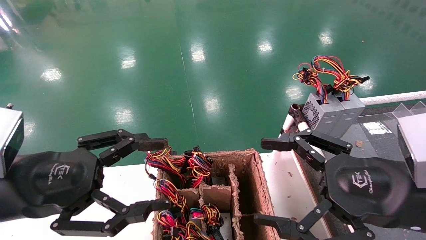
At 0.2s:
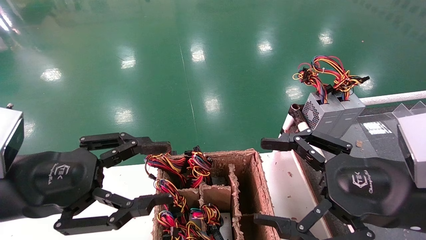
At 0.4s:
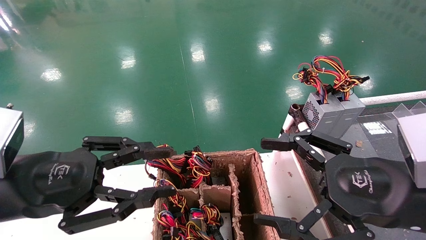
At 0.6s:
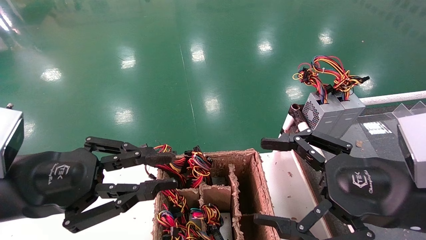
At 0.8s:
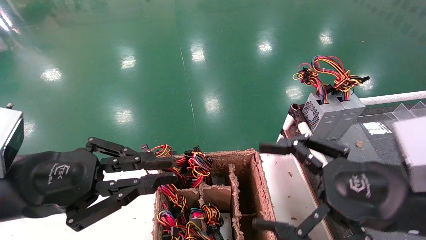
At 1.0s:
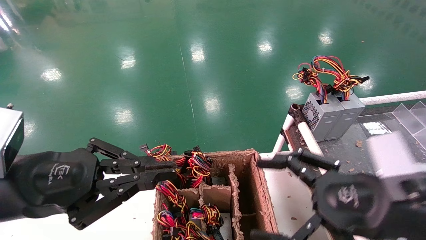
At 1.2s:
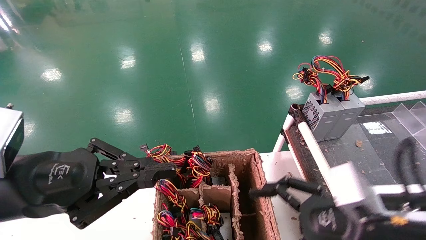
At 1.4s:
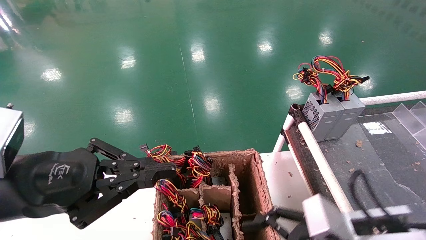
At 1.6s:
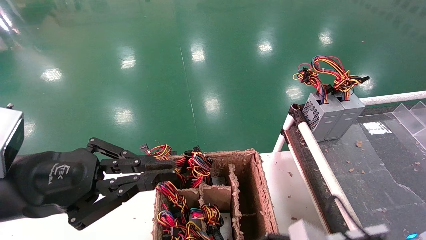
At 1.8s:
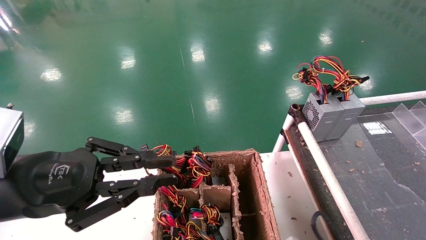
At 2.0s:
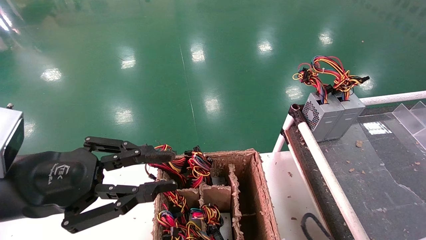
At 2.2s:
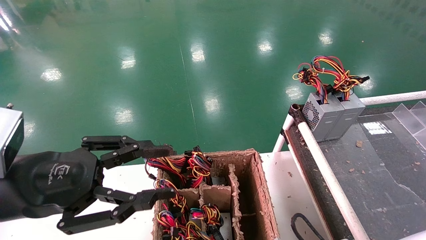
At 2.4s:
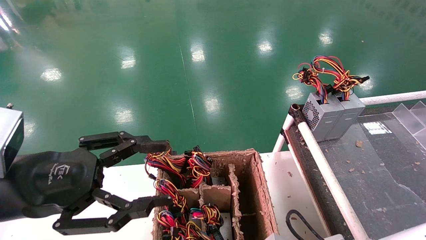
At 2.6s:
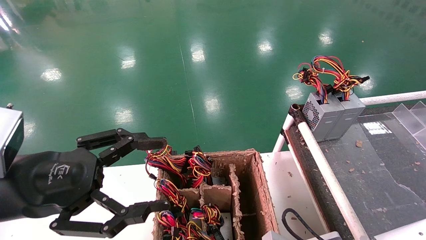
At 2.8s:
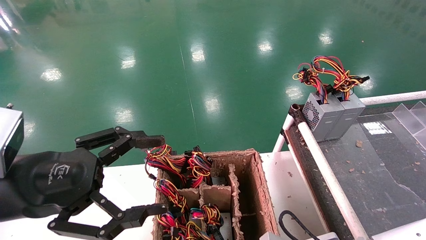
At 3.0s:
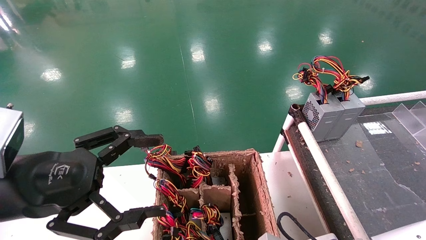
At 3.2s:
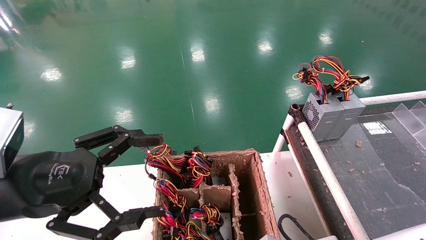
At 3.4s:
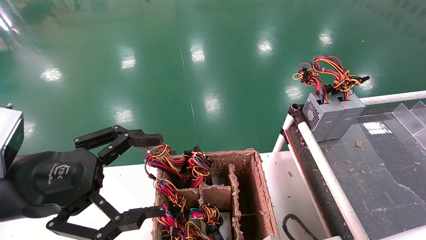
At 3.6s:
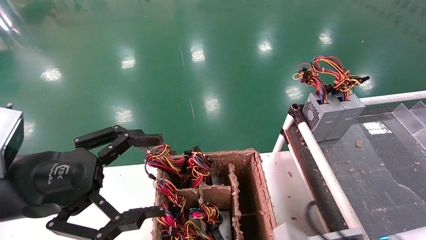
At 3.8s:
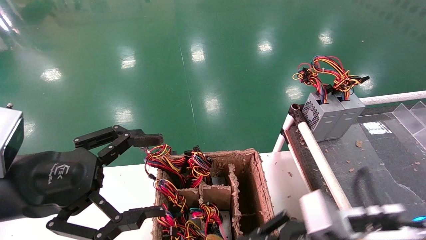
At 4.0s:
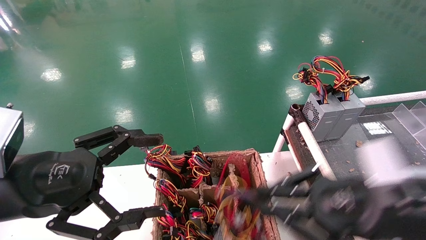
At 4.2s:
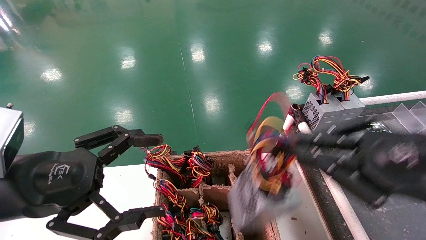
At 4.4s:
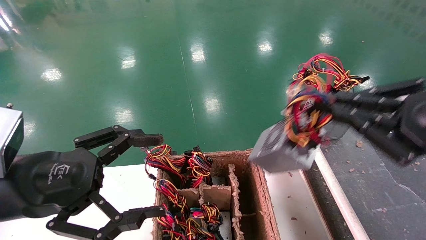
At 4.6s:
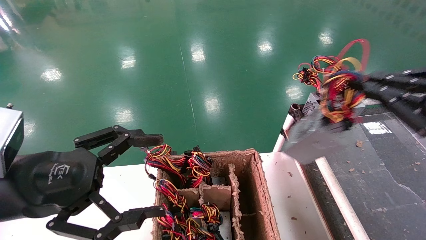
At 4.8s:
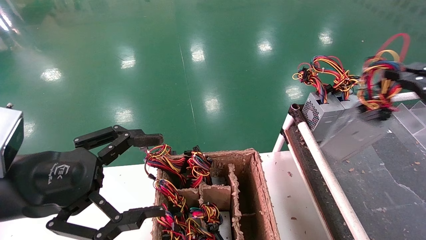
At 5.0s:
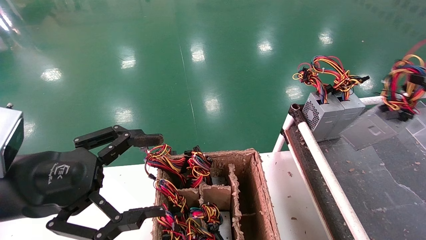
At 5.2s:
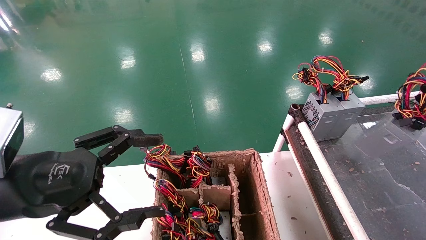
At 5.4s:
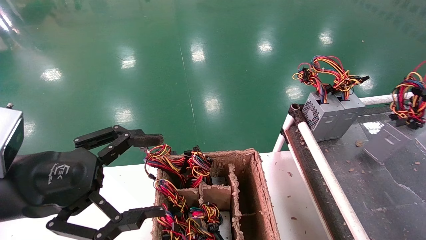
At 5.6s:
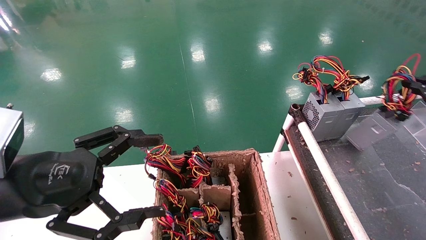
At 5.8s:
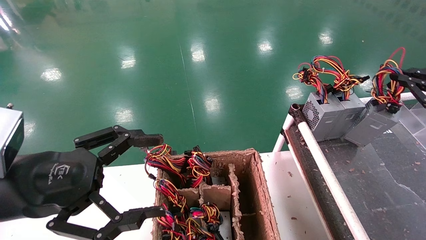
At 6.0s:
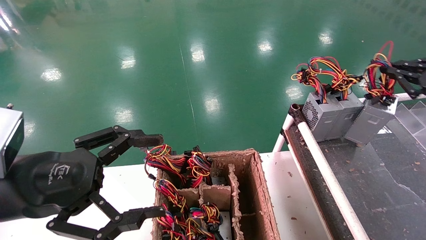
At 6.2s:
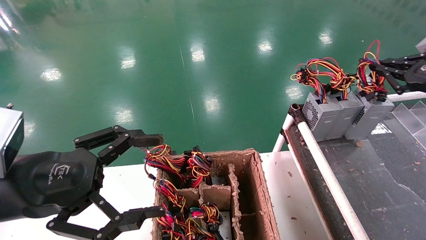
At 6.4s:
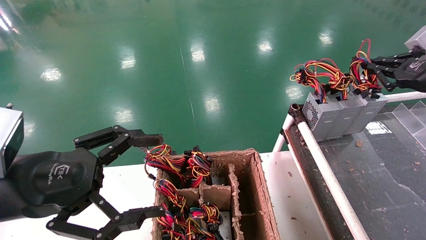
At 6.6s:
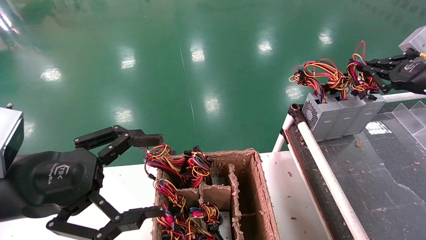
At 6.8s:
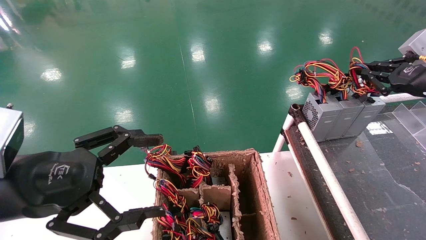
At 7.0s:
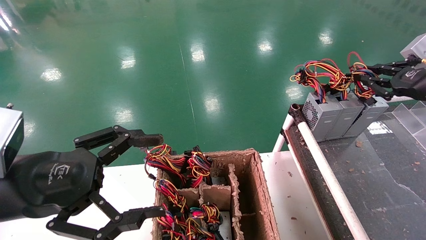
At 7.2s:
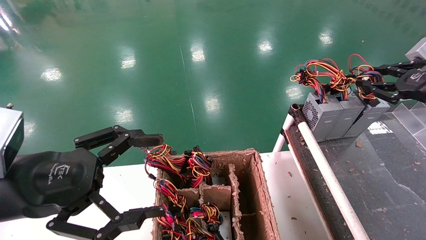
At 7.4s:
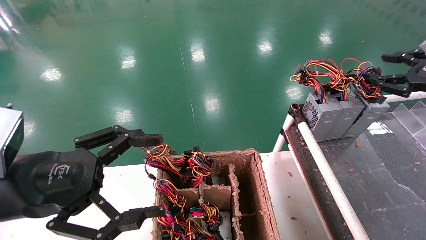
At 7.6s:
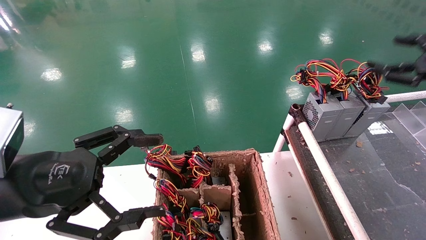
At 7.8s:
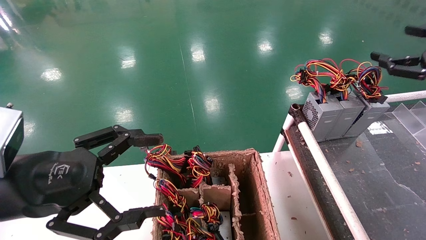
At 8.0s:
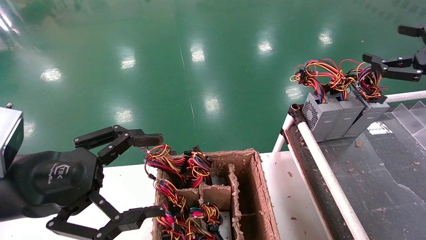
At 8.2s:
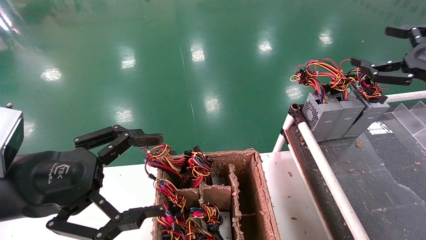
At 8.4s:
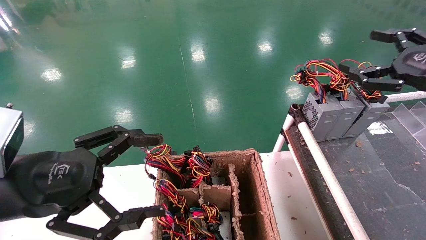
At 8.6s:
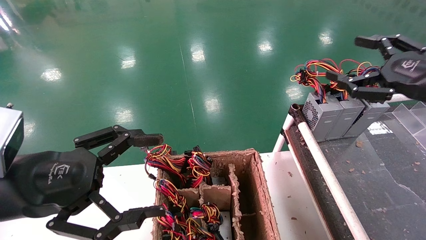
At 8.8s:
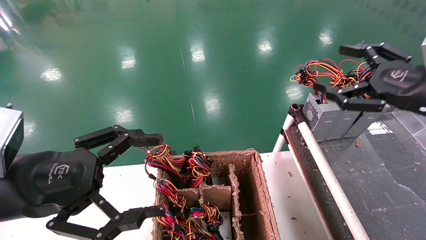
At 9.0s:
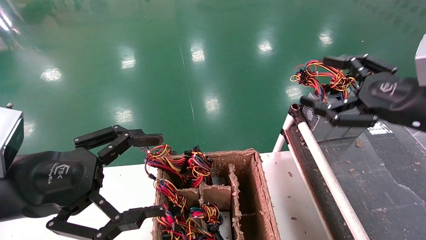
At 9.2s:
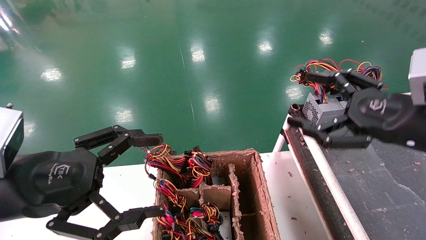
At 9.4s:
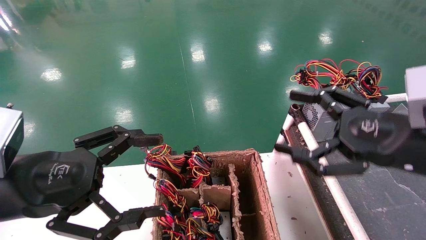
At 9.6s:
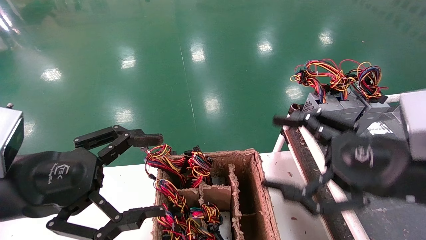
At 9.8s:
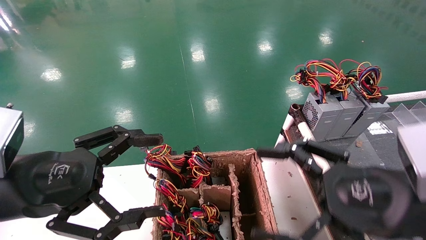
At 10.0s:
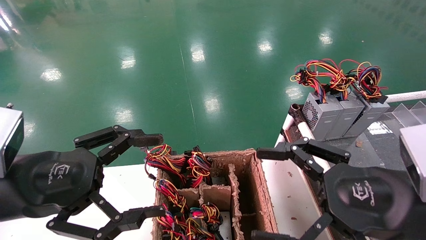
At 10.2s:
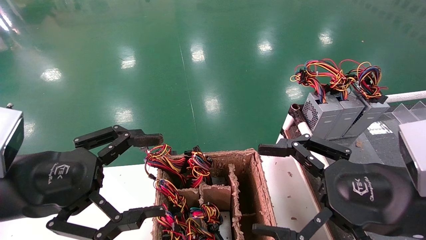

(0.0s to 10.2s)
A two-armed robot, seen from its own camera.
Step, 1.0s - 3.2s: Grab and lift the power supply from the large box.
Step, 3.4s - 7.0s: Place the power supply on the operating table.
0.0s - 1.4s: The left gripper closes up. The right gripper is displaced downward by approximately 10 cm.
1.4s - 3.0s: The left gripper opens its fingers. The right gripper is displaced downward by roughly 10 cm, and closes.
3.0s - 4.4s: The right gripper goes approximately 25 cm upward and to the right.
4.4s - 5.8s: The right gripper goes roughly 20 cm to the right and forward.
5.8s - 7.2s: The right gripper moves about 5 cm.
7.2s - 8.8s: The right gripper goes about 10 cm to the left and backward, and opens up.
8.8s - 10.2s: The right gripper moves backward, to the left and downward, about 15 cm.

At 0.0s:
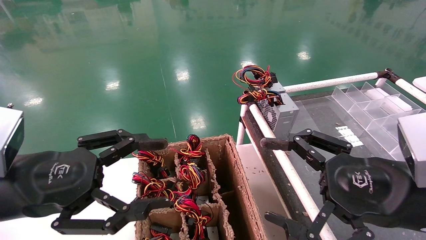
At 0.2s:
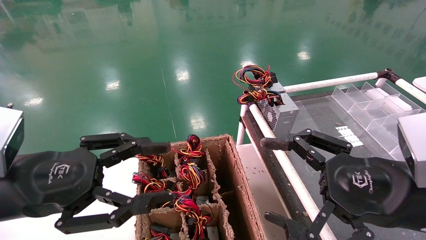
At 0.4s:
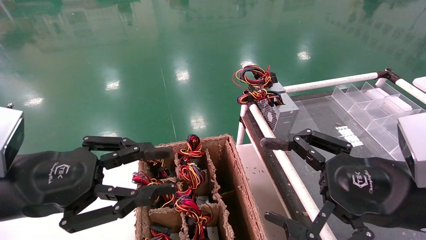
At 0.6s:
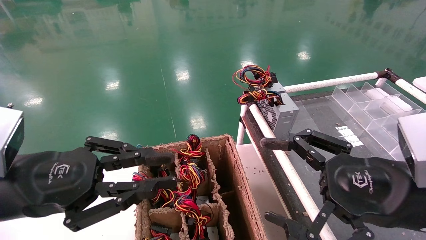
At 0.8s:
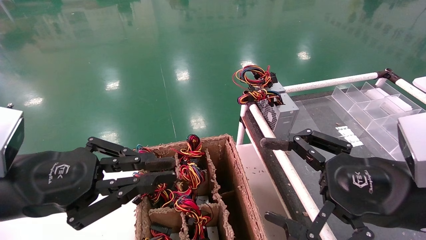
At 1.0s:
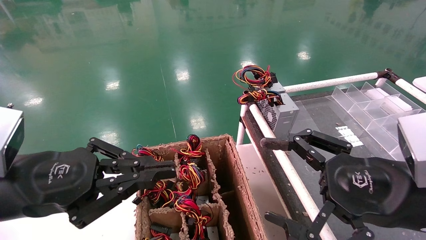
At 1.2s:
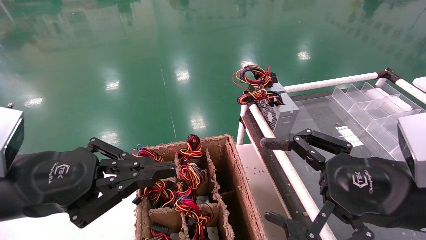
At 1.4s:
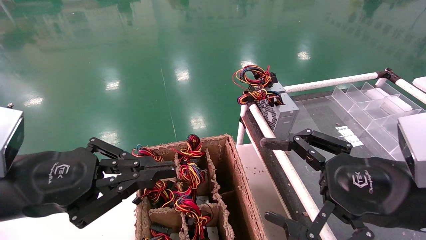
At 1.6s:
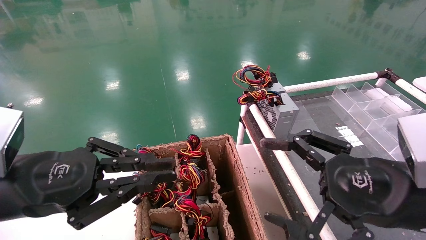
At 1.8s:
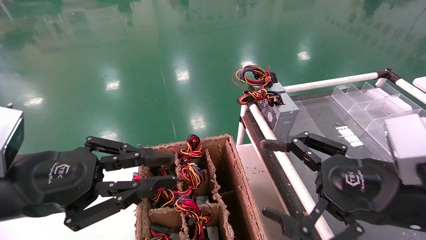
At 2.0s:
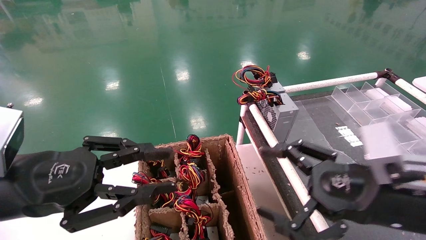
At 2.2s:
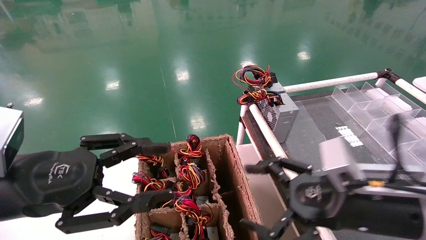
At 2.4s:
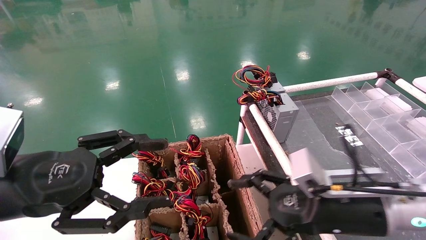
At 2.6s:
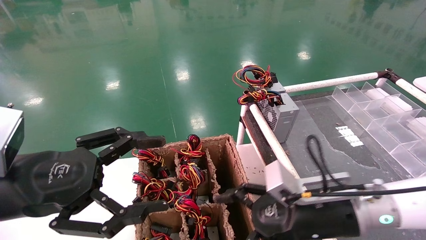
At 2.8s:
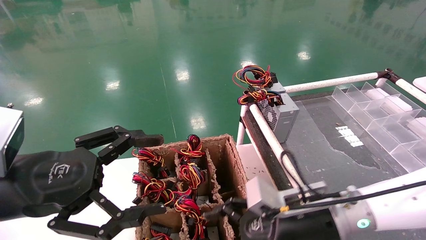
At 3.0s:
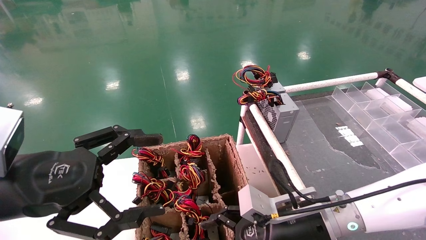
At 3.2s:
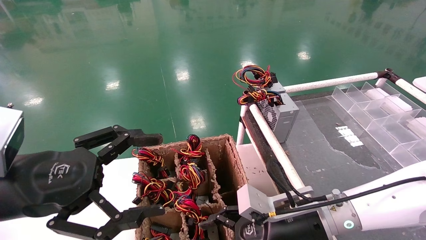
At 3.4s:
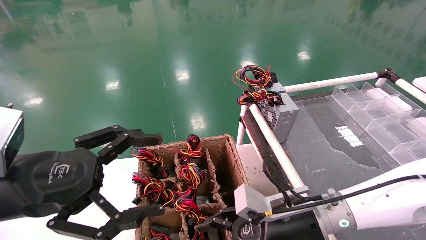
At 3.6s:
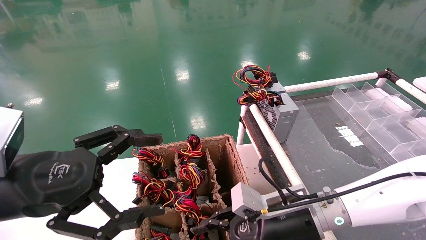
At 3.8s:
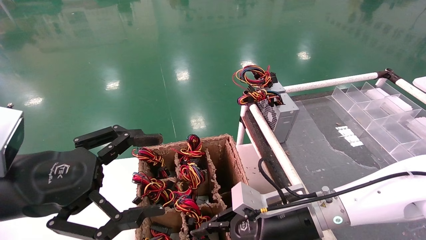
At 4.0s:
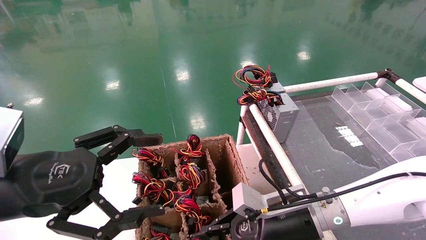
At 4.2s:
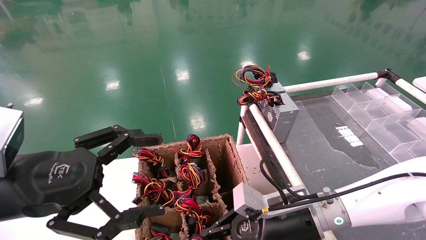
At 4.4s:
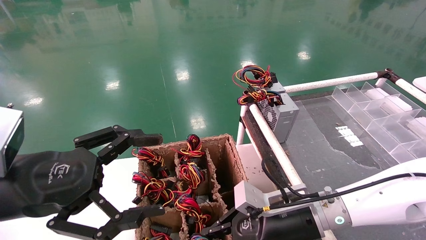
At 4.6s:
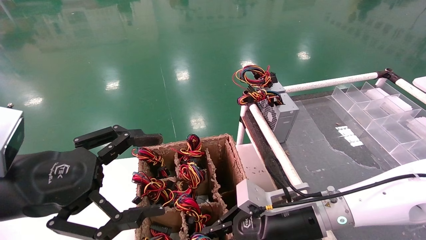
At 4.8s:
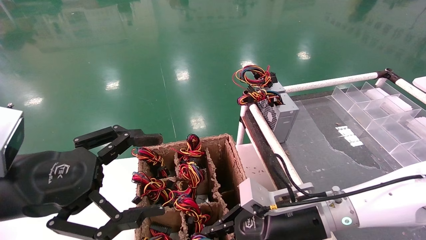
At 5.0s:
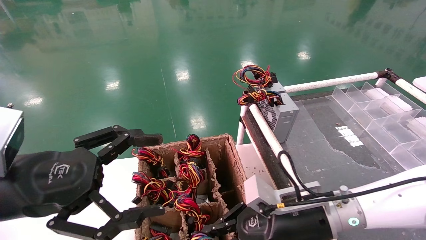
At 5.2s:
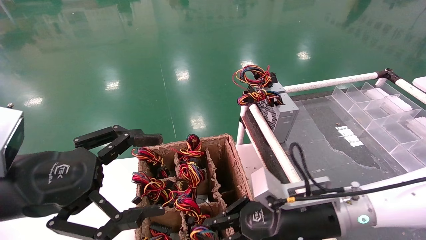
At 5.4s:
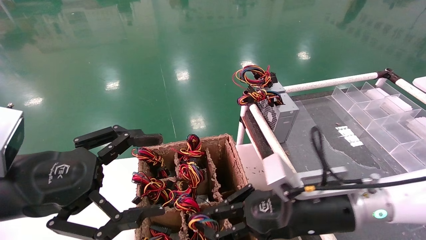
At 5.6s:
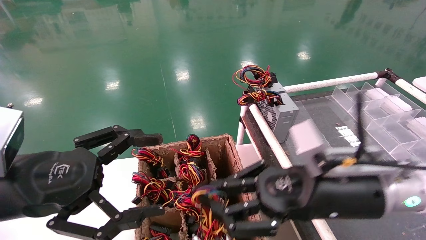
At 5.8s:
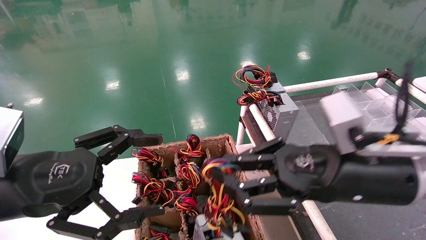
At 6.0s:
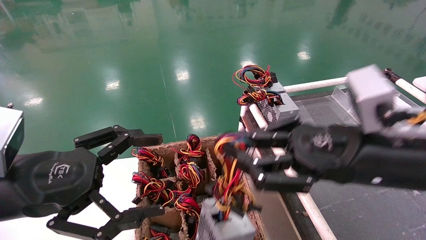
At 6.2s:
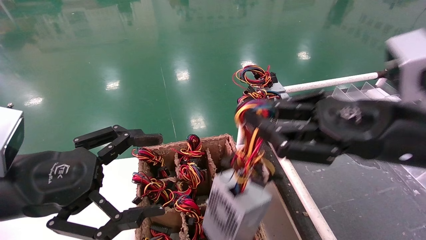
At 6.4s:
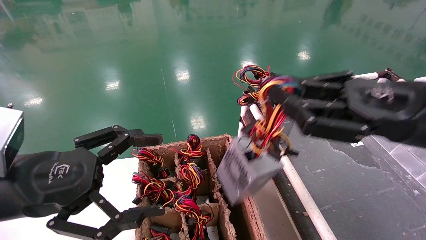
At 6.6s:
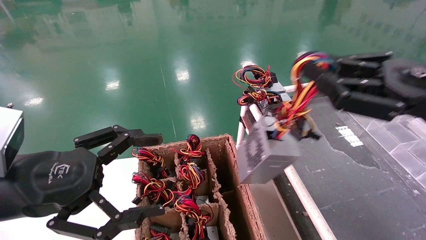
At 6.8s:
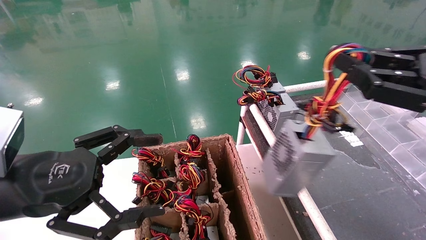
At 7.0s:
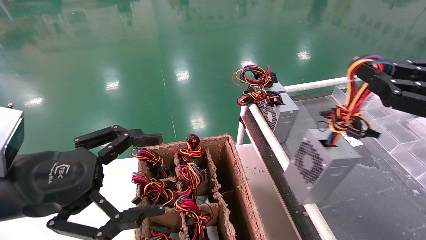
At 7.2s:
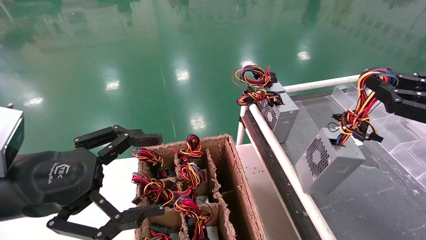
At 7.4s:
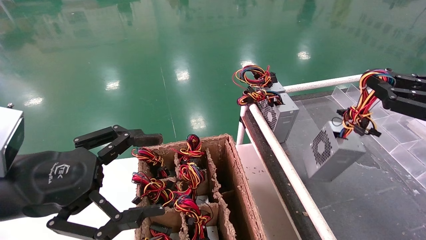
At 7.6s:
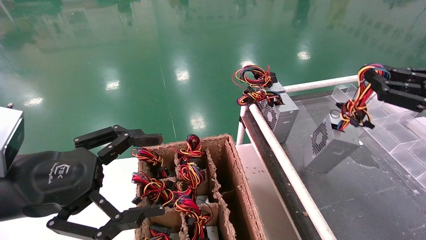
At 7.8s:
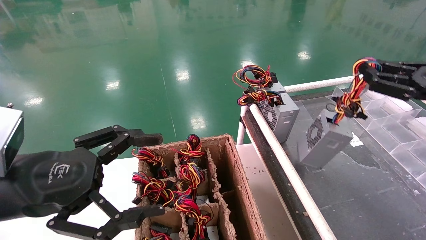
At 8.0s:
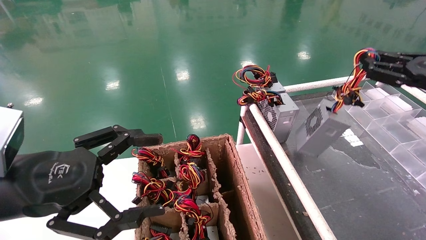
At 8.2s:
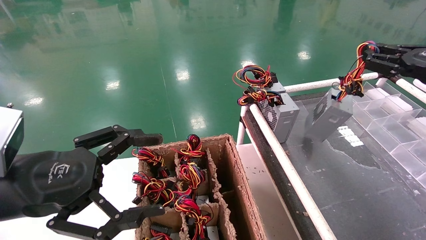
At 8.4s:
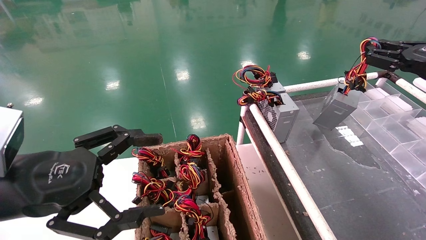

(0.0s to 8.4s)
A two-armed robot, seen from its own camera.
Step, 1.8s - 4.4s: Grab and lift the power supply from the large box.
0.0s - 1.4s: The left gripper closes up.
1.4s - 2.8s: The right gripper shifts about 15 cm downward, to the left and forward, while the left gripper opens its fingers.
2.8s - 4.2s: The right gripper closes its fingers.
4.2s - 5.6s: The right gripper shifts roughly 10 cm upward and backward.
5.6s - 7.0s: The right gripper shifts some 20 cm to the right and upward.
7.0s - 8.4s: The right gripper heads forward and to the right, covering roughly 15 cm.
